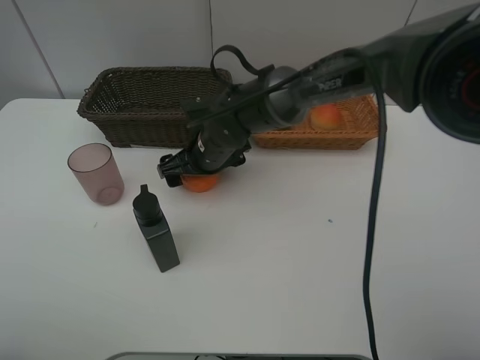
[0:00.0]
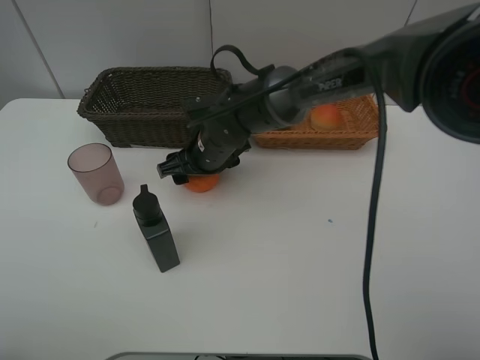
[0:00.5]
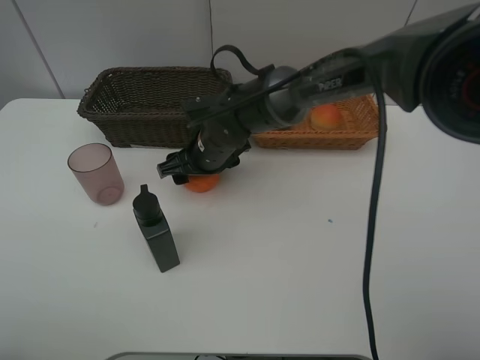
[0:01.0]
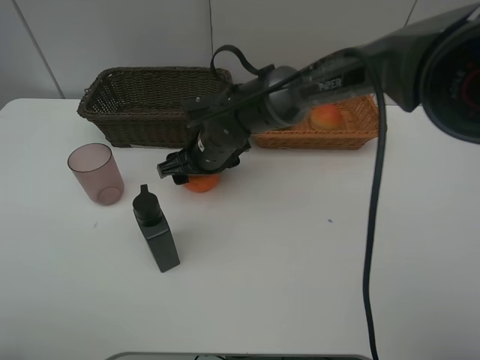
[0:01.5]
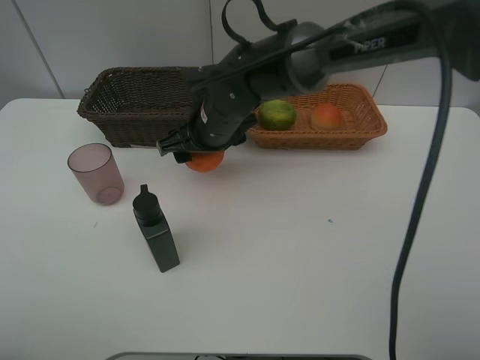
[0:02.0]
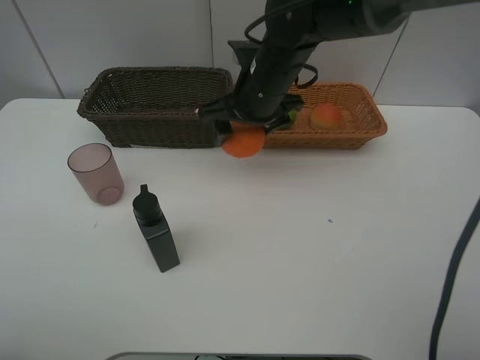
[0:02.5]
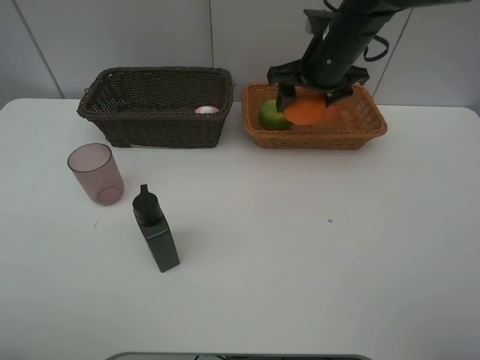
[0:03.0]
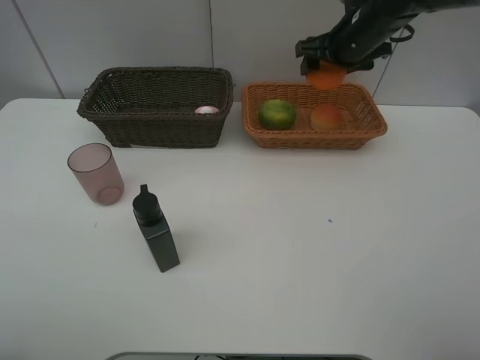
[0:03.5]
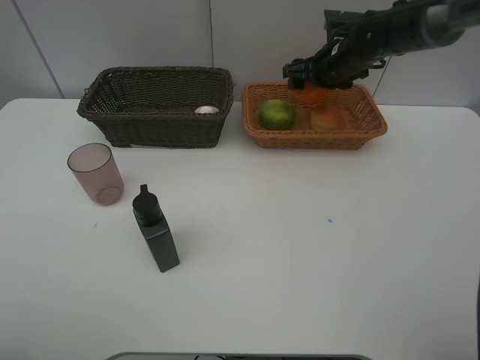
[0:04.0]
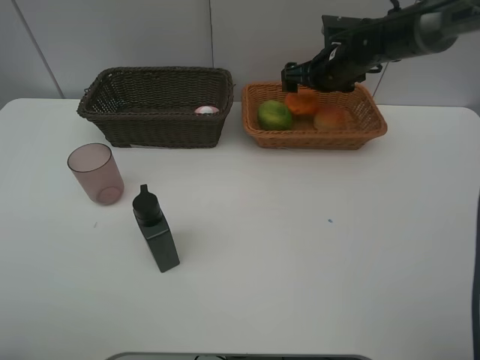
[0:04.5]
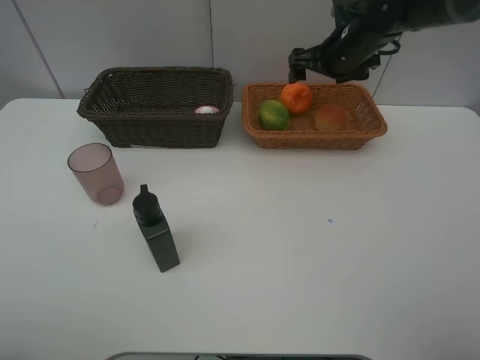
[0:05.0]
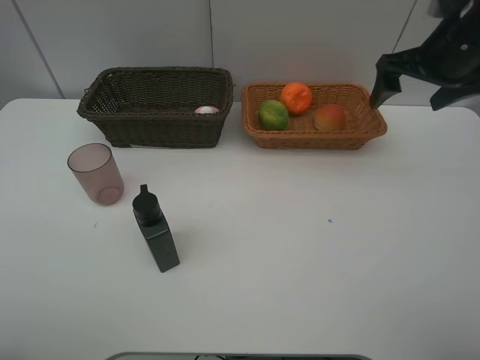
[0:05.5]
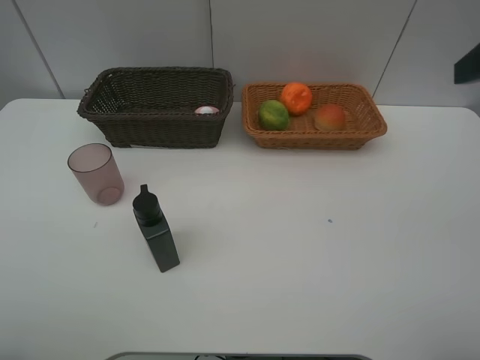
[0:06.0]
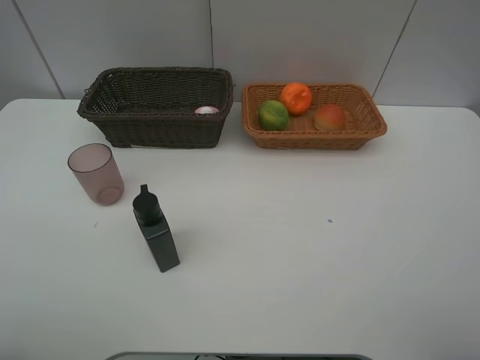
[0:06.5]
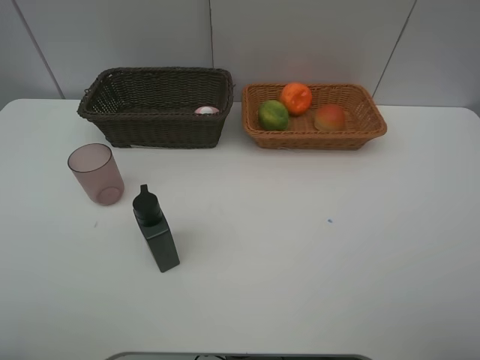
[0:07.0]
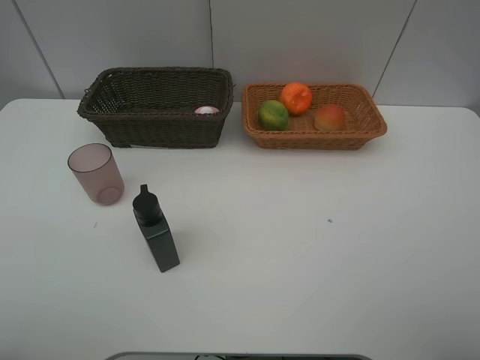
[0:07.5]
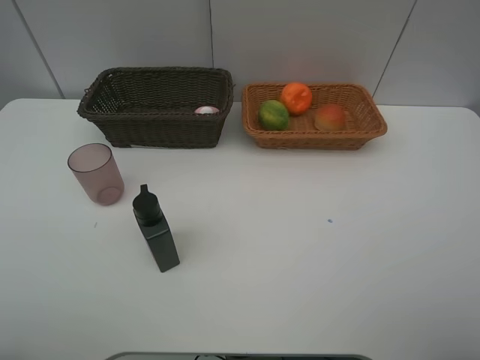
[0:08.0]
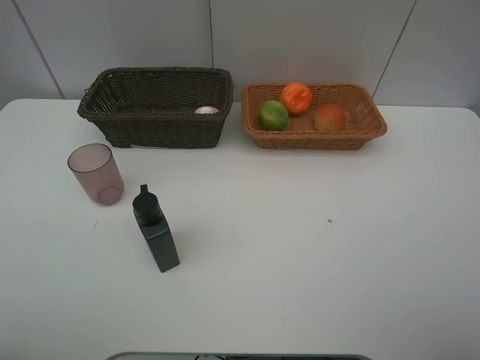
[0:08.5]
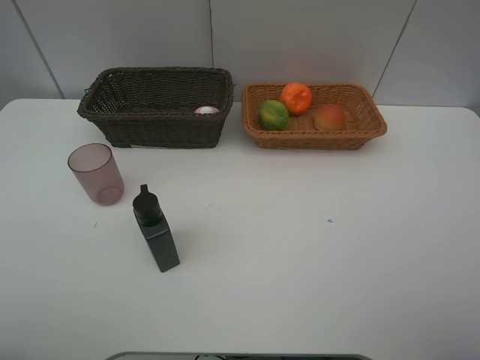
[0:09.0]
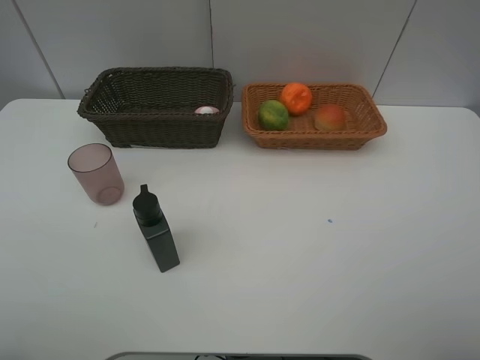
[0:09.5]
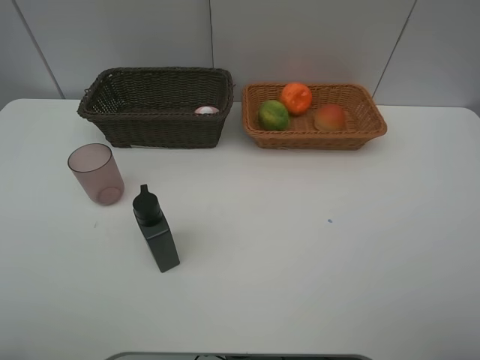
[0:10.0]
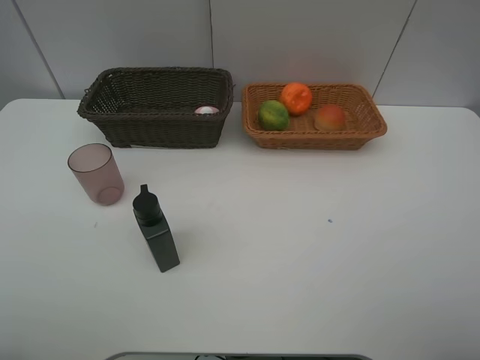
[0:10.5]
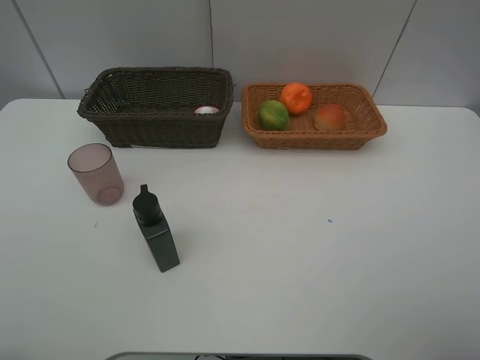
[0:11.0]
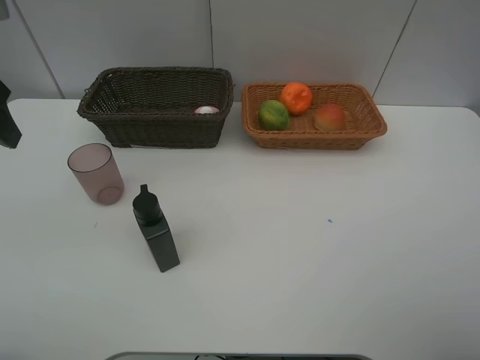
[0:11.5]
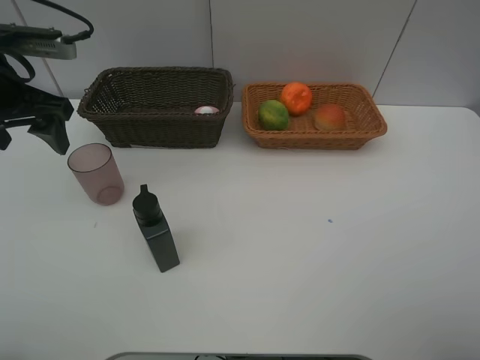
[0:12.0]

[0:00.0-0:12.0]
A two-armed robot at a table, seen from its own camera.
Task of the whole recording: place multiple objects separately in different baskets.
0:00.0 to 0:02.0: The right gripper shifts some 5 cm upward, and closes.
0:02.0 to 0:04.0: The right gripper is displaced to the right and forward by roughly 25 cm.
0:04.0 to 0:06.0: The right gripper is displaced backward and upward by about 35 cm, and opens up.
0:08.0 to 0:10.0: Both grippers stay about where they are.
0:10.0 to 0:12.0: The left gripper heads forward, covering about 30 cm.

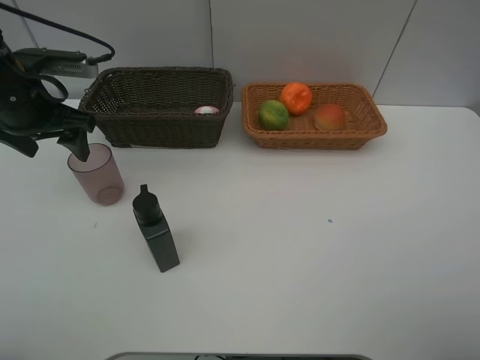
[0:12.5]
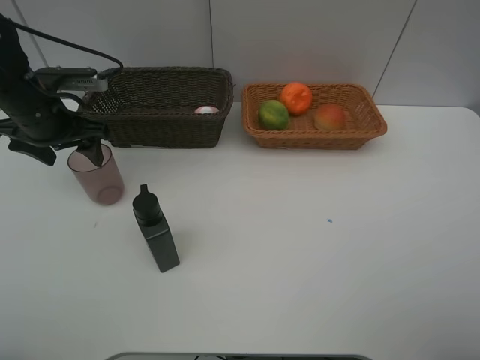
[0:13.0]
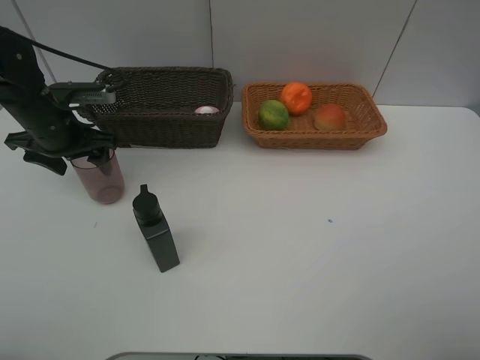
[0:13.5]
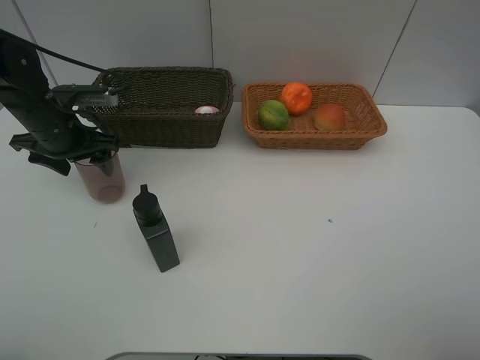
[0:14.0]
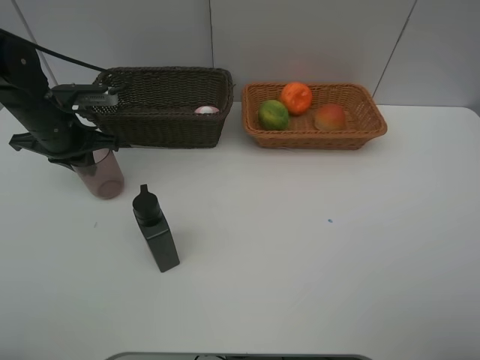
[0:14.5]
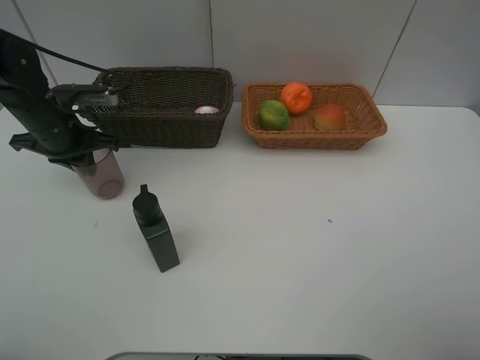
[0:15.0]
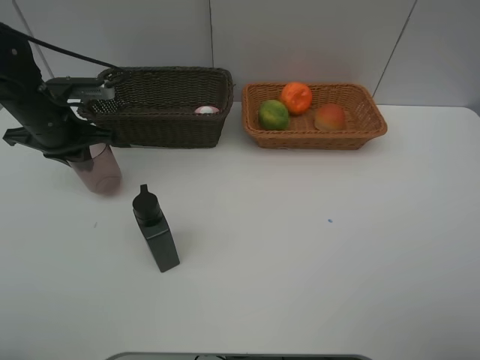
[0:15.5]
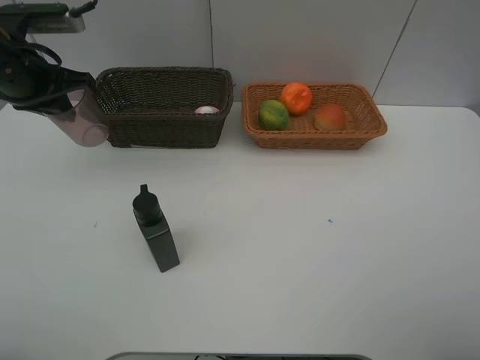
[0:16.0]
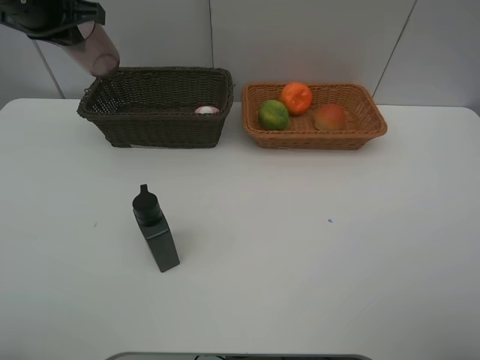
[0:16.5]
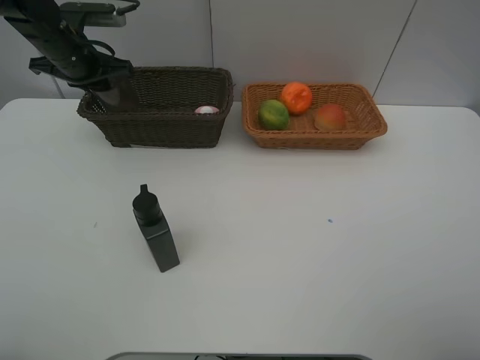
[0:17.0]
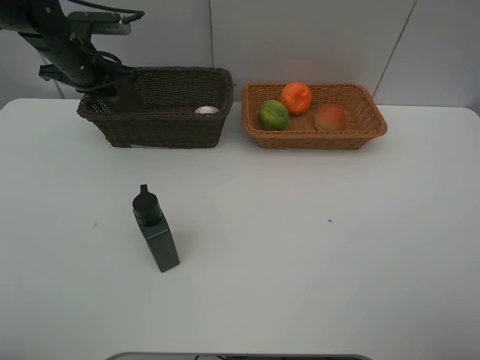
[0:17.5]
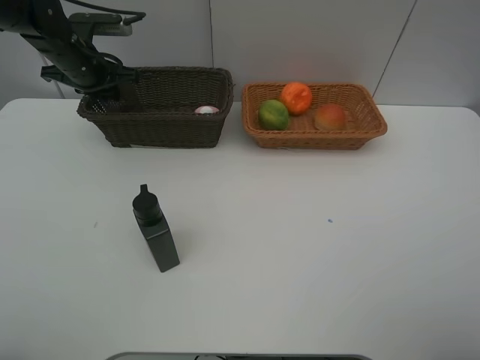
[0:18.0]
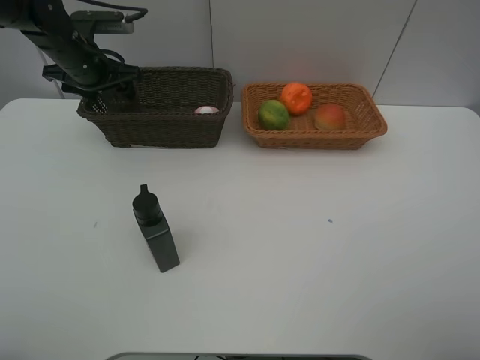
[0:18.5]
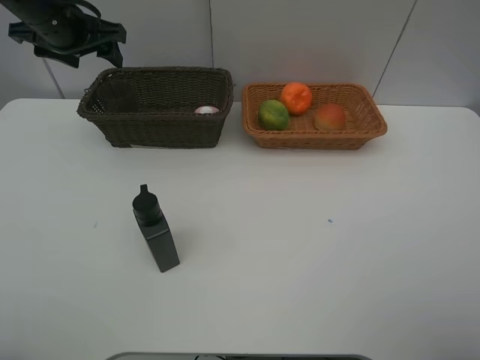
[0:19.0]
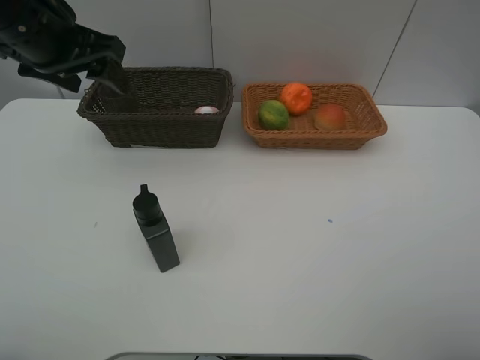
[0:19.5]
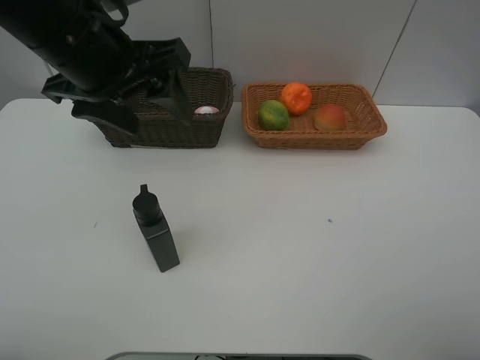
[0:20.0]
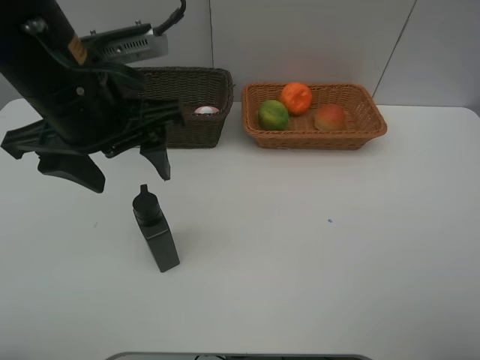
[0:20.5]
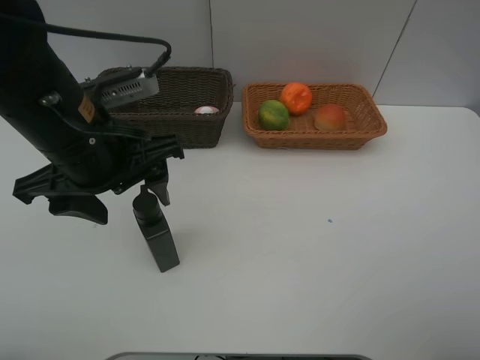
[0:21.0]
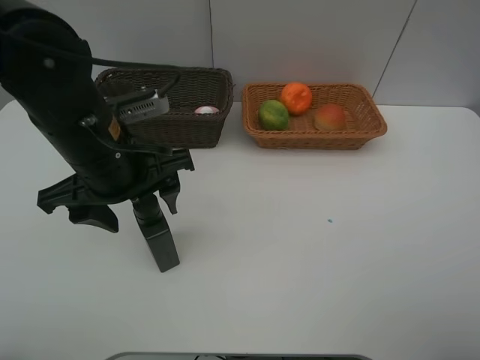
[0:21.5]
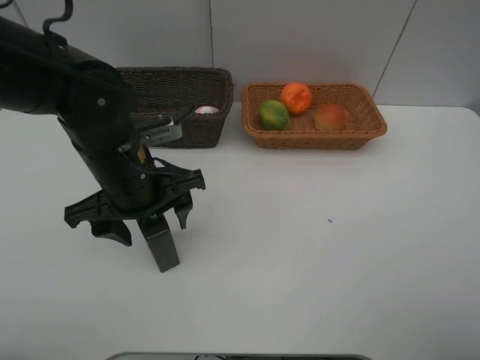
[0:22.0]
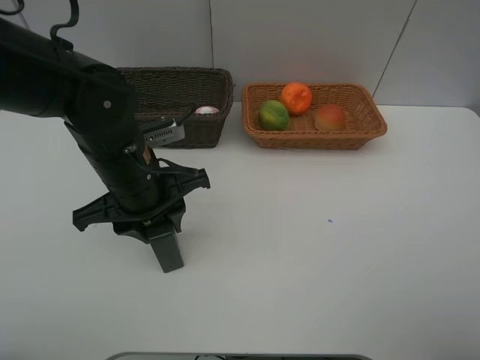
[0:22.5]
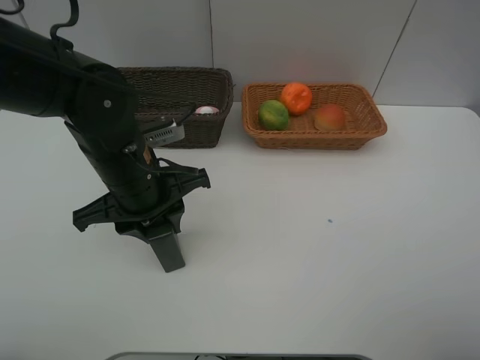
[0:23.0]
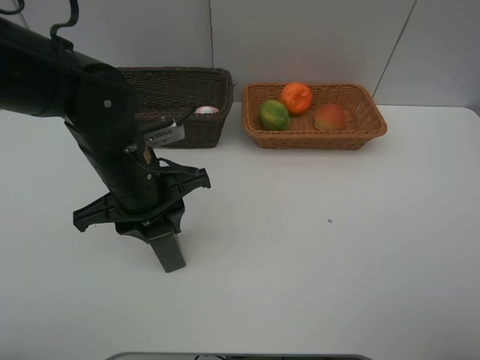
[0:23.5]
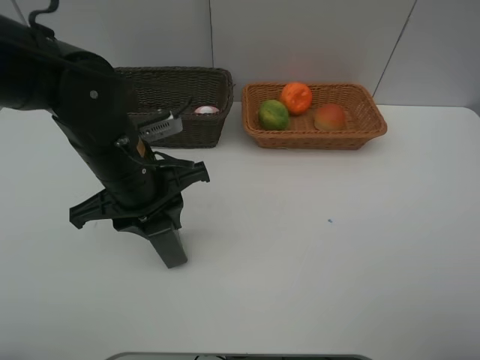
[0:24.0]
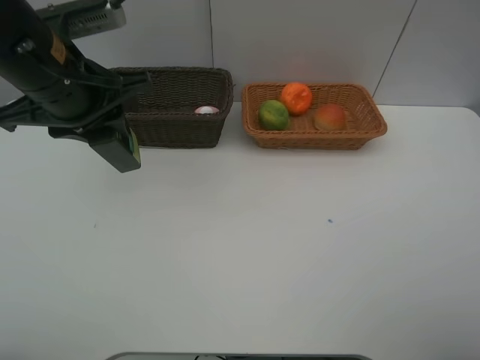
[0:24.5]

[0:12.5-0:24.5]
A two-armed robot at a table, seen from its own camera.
Task of the whole recording: place multiple objects separately in different baskets.
0:12.5 to 0:14.5: The left gripper moves downward, some 5 cm, and closes its fingers.
0:14.5 to 0:16.5: The left gripper heads upward, covering approximately 15 cm.
0:16.5 to 0:18.5: The left gripper heads downward, covering some 10 cm, and opens.
0:18.5 to 0:20.5: The left gripper travels backward and to the right by about 25 cm.
0:20.5 to 0:22.5: The left gripper heads downward, covering roughly 10 cm, and closes up.
0:22.5 to 0:24.5: The left gripper goes about 10 cm upward and to the left.

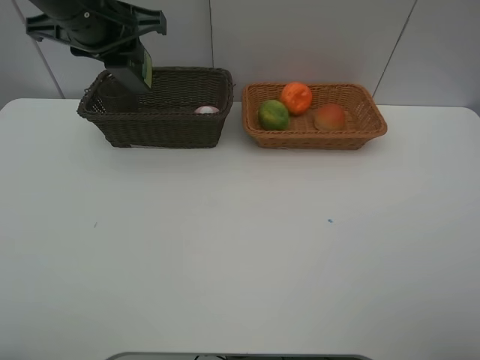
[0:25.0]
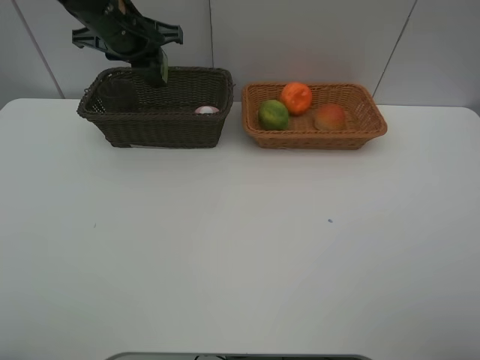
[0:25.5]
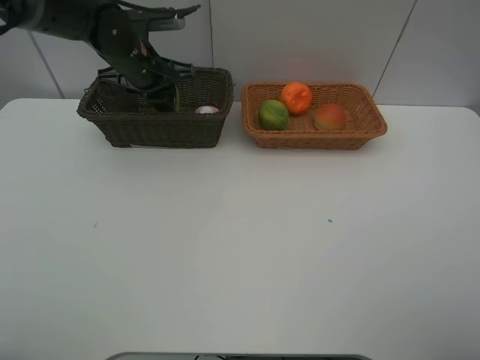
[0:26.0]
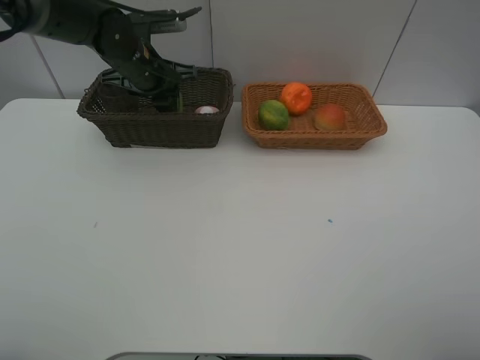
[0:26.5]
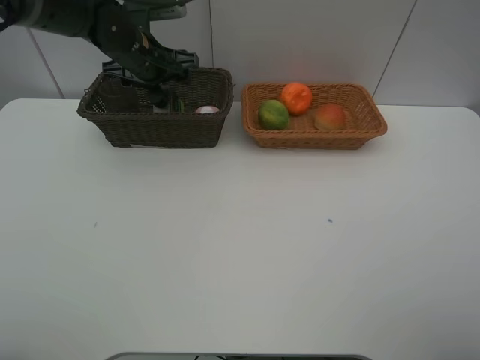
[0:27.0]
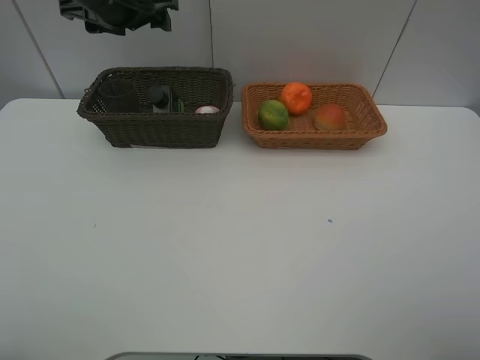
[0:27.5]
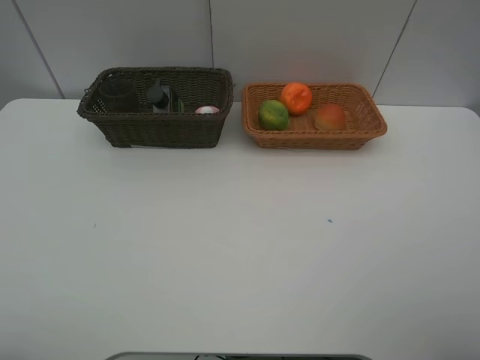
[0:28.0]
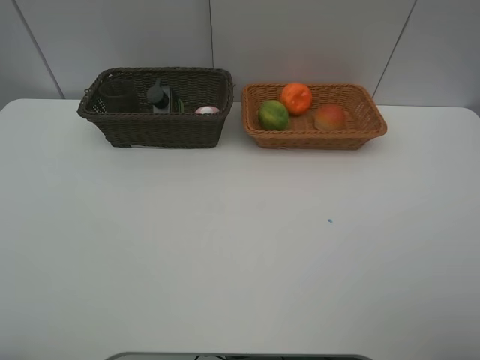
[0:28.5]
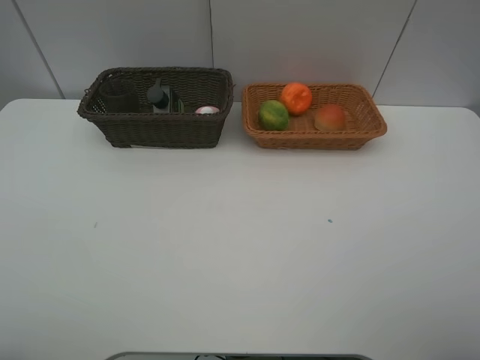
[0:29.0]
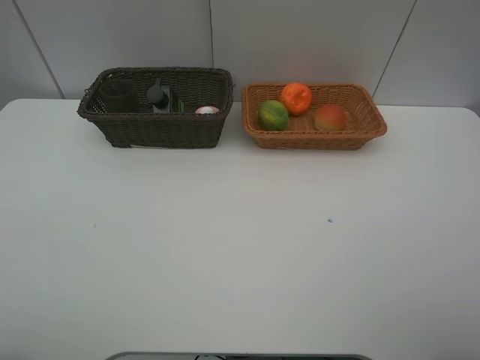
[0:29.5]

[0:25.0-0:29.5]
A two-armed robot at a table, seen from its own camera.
Task of the whole recording: place multiple objects separately in different baskets.
0:25.0 to 0:27.0: The left gripper travels downward and forward by approximately 15 cm, and opens up.
0:27.0 to 0:29.5: The left gripper heads backward, covering roughly 40 cm.
